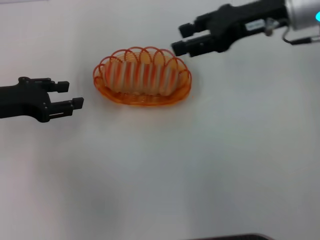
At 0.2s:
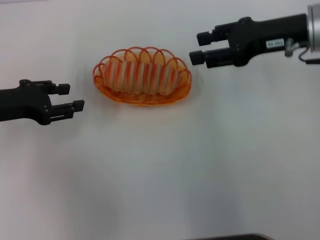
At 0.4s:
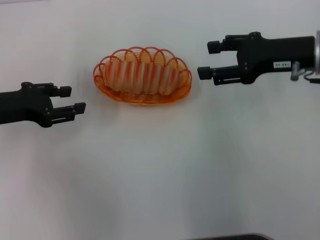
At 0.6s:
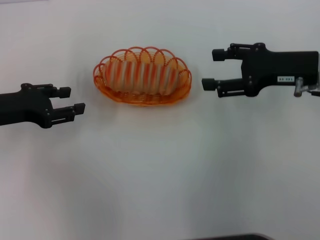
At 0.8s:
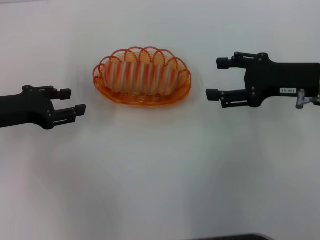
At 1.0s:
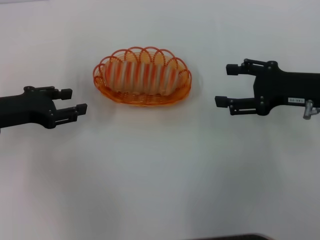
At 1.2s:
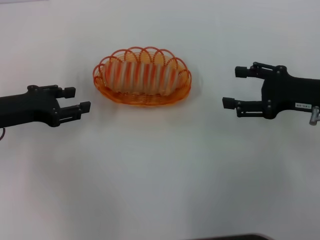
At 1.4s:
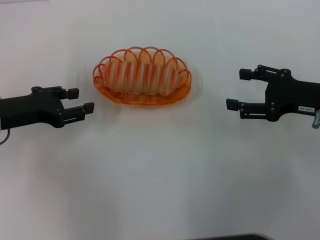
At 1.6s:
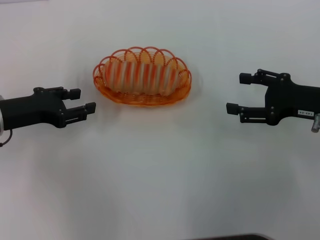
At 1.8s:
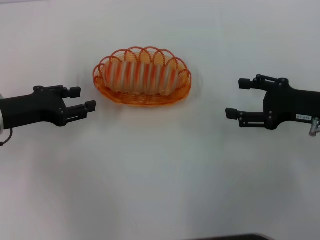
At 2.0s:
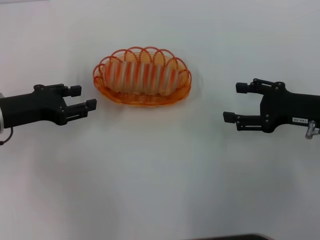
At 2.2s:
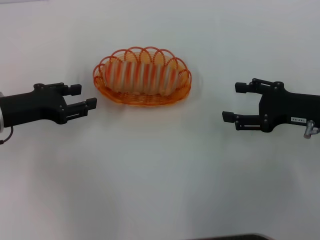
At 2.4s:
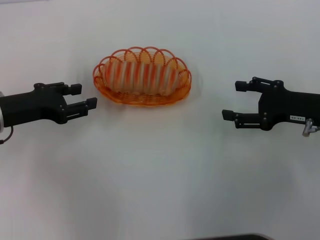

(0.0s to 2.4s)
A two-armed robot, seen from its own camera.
0.0s - 1.2s: The right gripper heads downward, backward and to the right, covering approximately 15 cm, and opens.
1.2s - 2.4s: The grippers stay close to where they were, moving slightly.

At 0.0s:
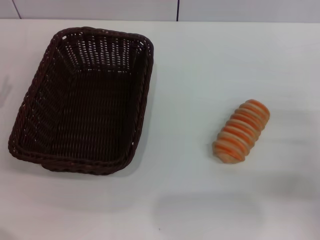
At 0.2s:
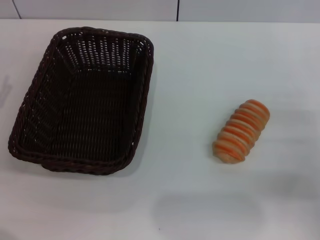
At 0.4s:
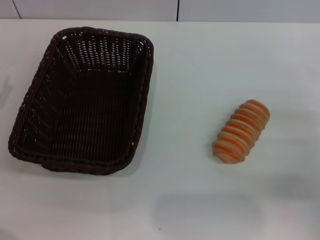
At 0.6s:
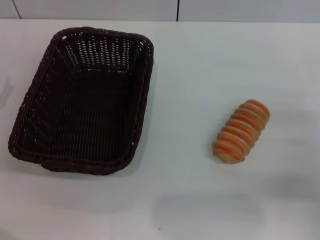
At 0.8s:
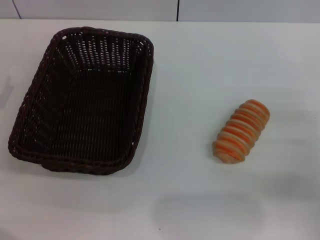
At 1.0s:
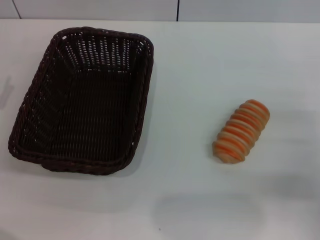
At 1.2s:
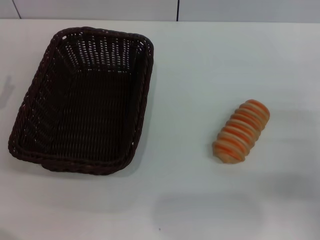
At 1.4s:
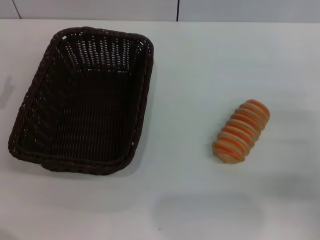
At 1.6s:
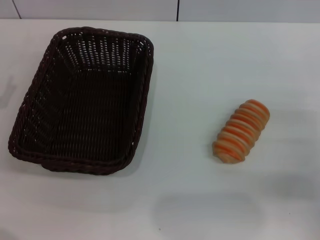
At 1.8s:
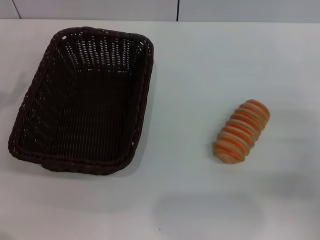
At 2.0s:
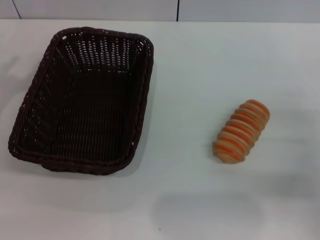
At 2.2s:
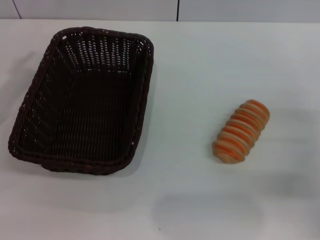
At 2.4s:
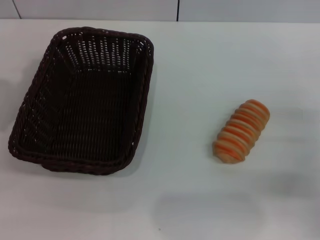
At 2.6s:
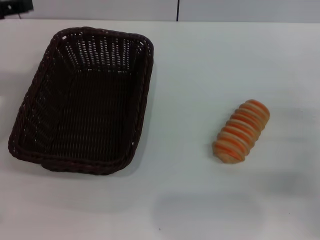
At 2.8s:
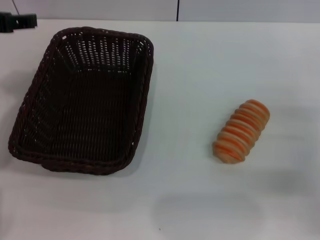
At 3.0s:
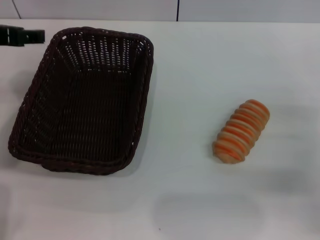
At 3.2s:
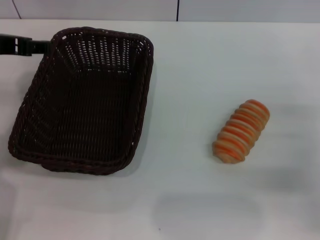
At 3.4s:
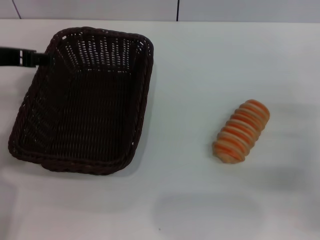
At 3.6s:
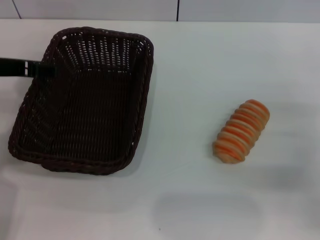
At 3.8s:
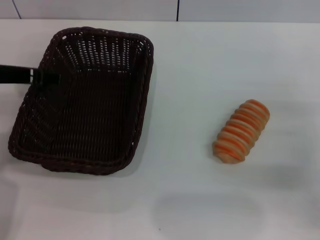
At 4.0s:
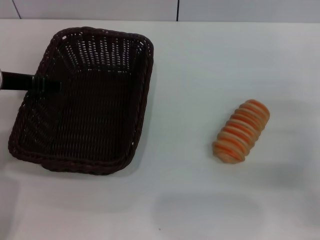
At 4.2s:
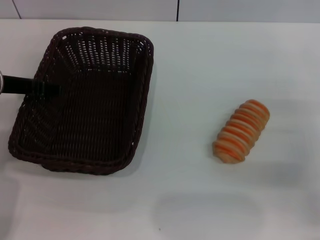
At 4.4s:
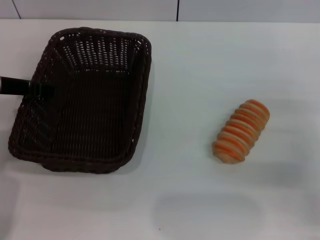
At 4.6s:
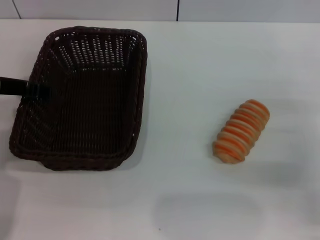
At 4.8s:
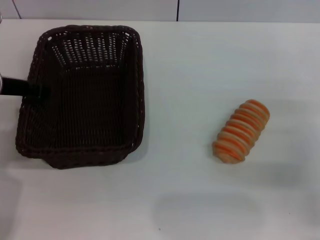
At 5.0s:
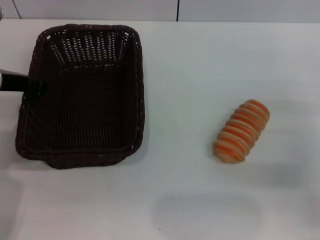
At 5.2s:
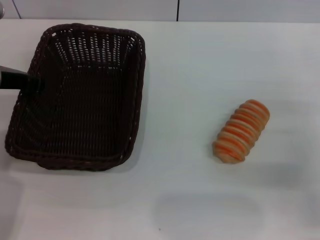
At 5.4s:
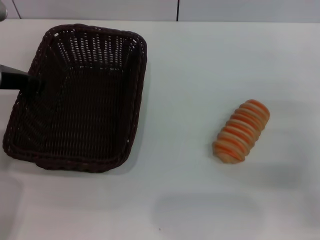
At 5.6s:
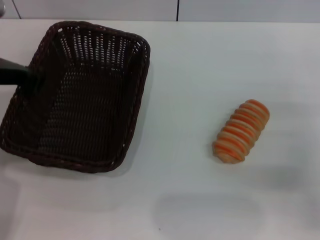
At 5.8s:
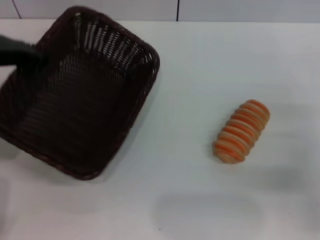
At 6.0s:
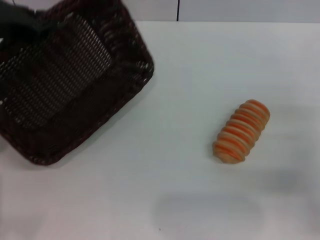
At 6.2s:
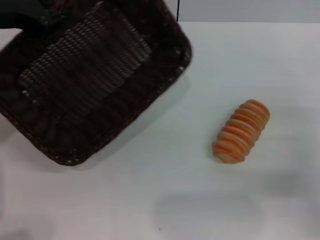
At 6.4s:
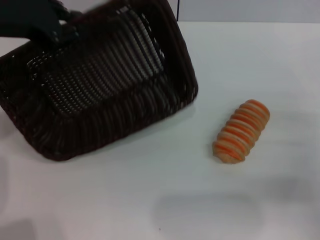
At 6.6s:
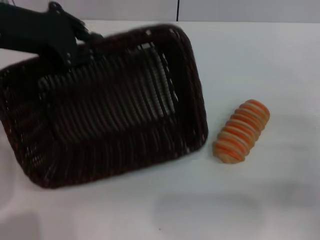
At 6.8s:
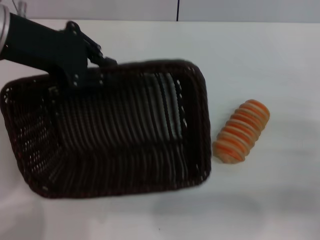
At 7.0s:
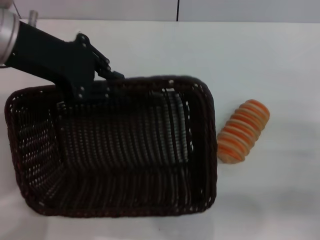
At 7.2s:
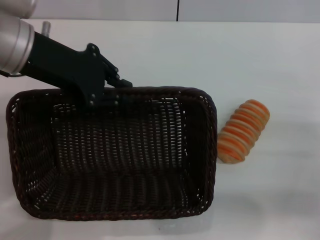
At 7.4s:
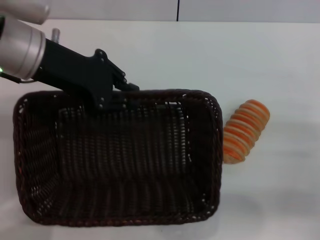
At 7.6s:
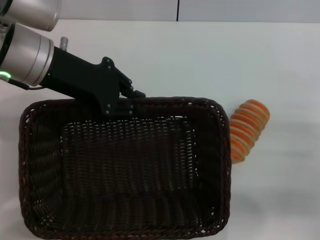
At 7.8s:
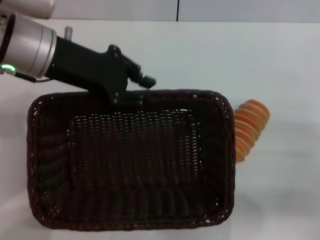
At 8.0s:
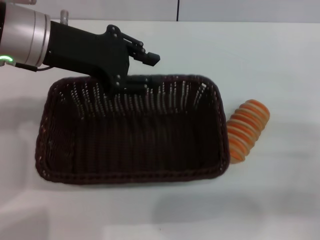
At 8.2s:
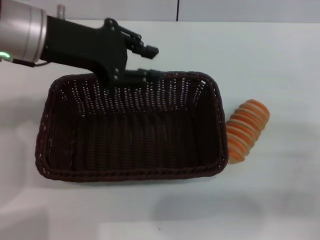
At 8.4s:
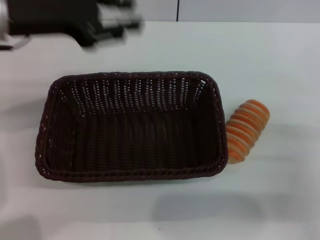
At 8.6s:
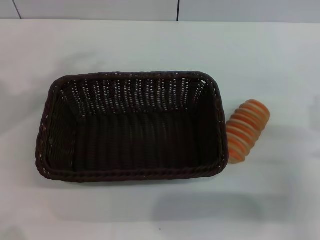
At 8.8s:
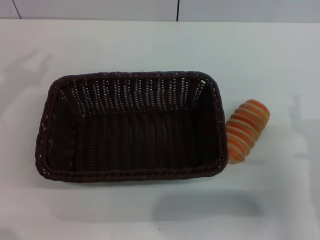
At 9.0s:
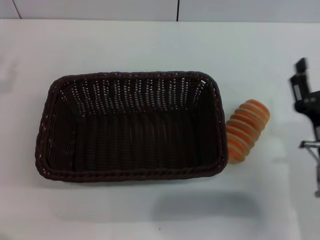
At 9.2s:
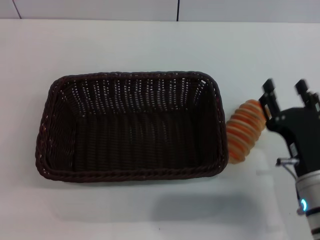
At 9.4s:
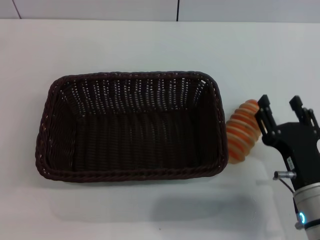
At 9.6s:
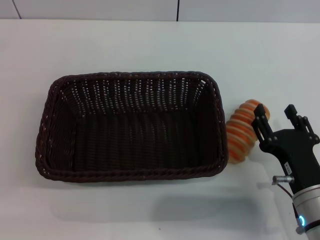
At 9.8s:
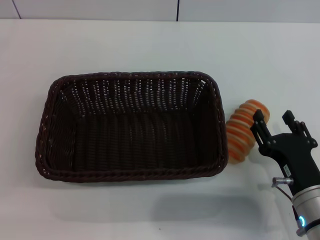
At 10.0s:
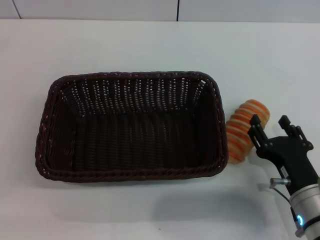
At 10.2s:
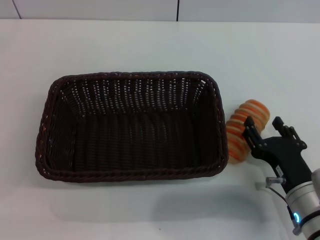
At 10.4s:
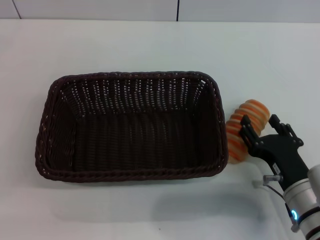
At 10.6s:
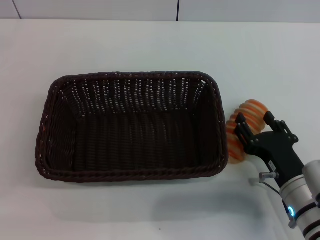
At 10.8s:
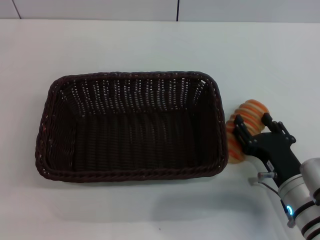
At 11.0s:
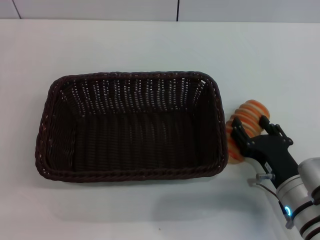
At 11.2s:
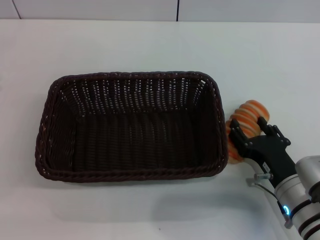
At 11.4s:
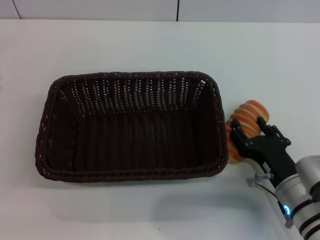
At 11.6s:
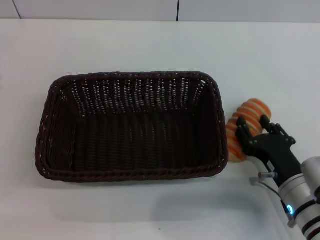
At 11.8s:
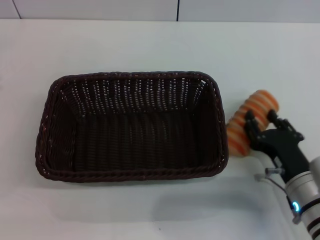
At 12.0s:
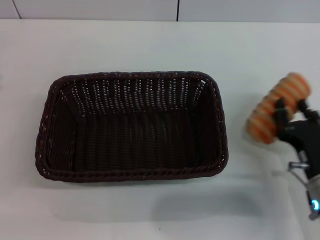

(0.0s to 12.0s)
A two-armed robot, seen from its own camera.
Step, 0.0s - 6.0s: Pick up the dark basket with the left gripper.
Step, 6.2s - 8.0s: Place the dark basket in the center of view with the left gripper.
0.0s - 1.6s: Both grippers stay about where they are.
1.6s - 3.0s: The left gripper travels upward and to the right by about 20 cm.
3.0s - 4.4s: The left gripper travels downward by about 10 cm.
4.4s - 6.0s: The left gripper shifts some 5 cm upward, and closes its fingers.
6.0s - 7.6s: The left gripper goes some 10 cm to the right.
7.6s - 9.0s: The right gripper is displaced to the left by about 10 cm. The left gripper is displaced to the left and downward by some 20 cm, and opens up.
10.4s - 12.0s: The grippers make only small movements.

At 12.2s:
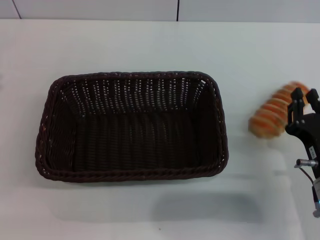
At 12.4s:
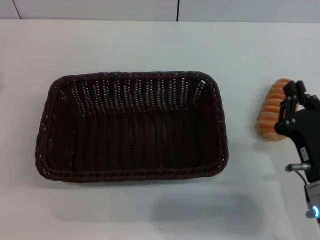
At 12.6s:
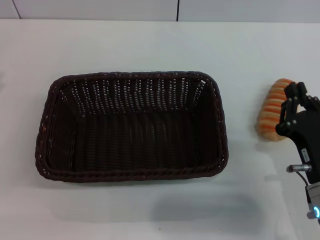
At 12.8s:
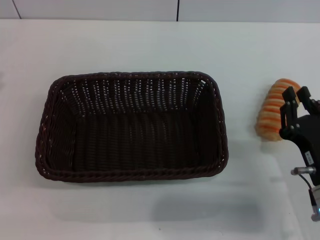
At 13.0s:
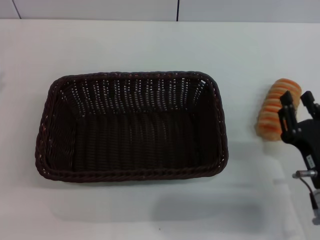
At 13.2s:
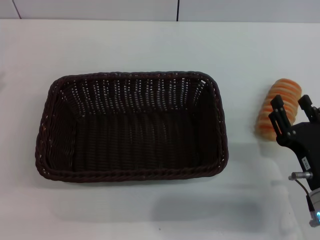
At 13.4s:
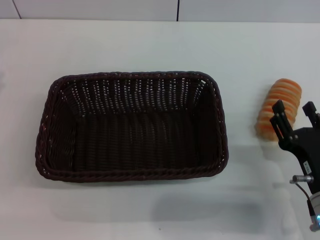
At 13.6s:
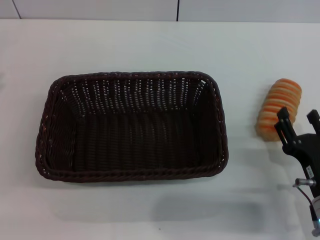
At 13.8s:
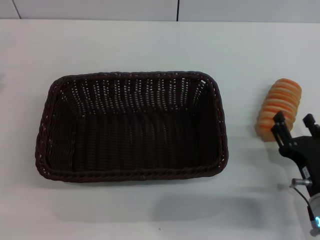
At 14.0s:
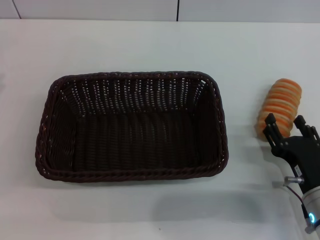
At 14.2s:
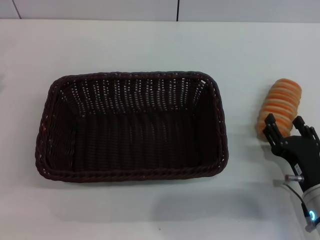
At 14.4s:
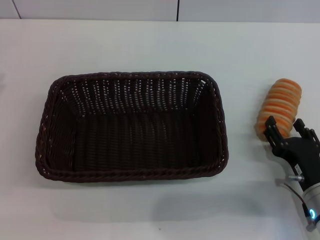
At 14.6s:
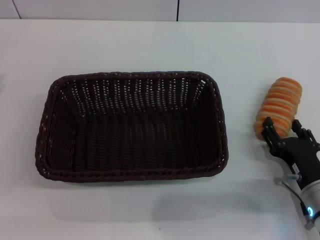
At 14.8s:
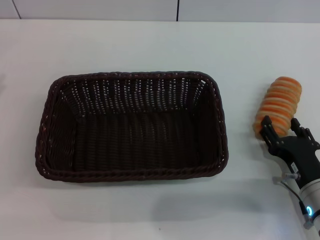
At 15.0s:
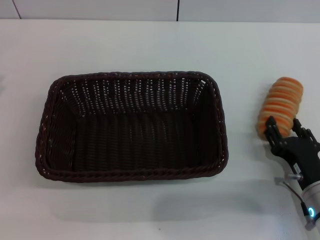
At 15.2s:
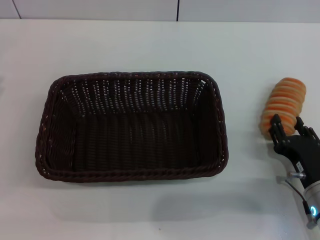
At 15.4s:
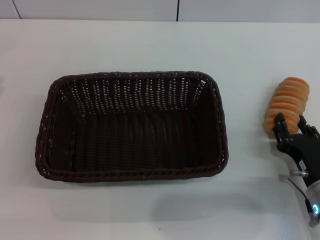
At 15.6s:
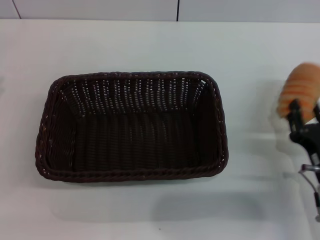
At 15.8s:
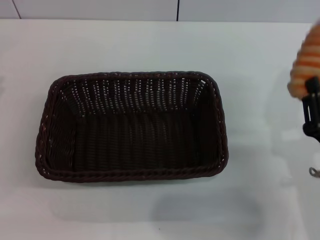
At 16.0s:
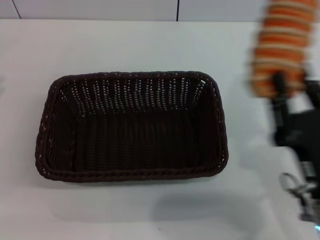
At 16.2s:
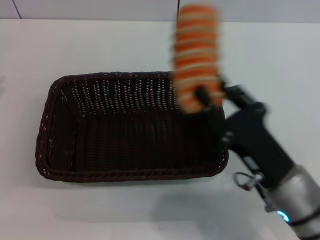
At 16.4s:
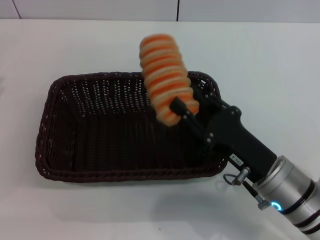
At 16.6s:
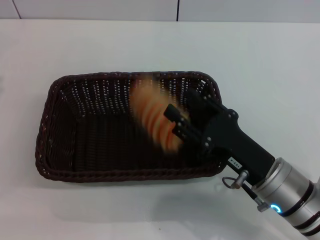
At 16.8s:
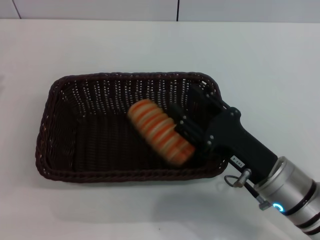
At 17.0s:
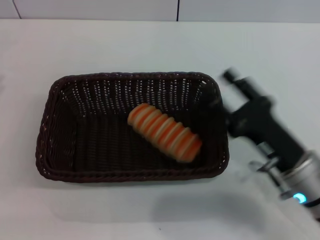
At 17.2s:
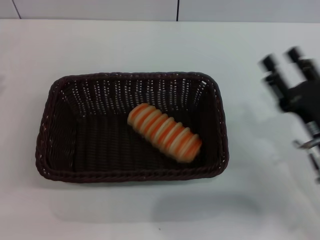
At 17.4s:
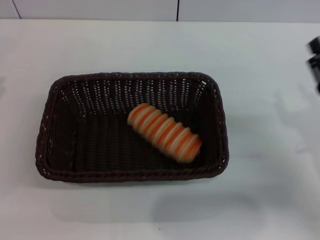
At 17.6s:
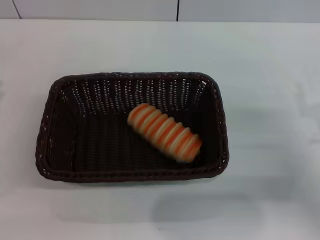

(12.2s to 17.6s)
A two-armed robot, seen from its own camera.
Step, 12.2s - 15.6s: Pick up the long bread with the right gripper.
Step, 16.0s - 16.8s: Place the long bread into the dark basket with the right gripper.
12.2s - 13.6s: The right gripper opens up.
13.6s - 15.0s: There are only small adjustments of the grippers.
15.0s - 16.2s: The right gripper heads upward and to the left, covering roughly 10 cm, and closes its fingers.
16.2s - 17.6s: The right gripper heads to the right and forward, covering some 15 cm, and opens.

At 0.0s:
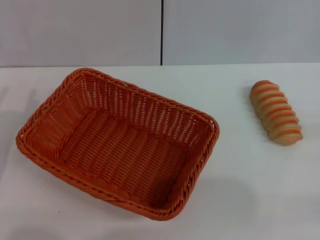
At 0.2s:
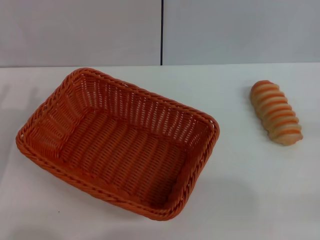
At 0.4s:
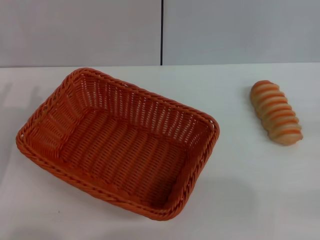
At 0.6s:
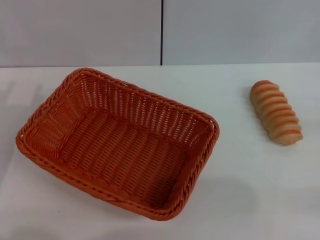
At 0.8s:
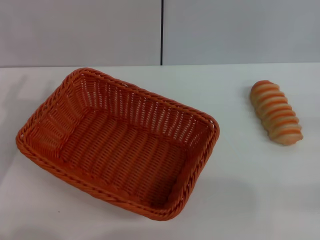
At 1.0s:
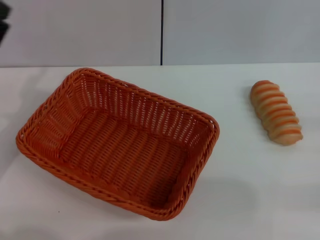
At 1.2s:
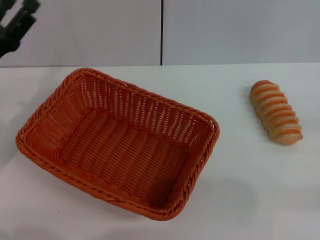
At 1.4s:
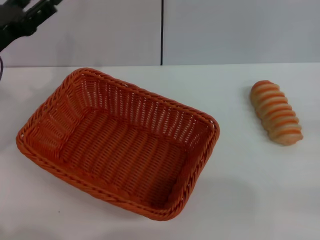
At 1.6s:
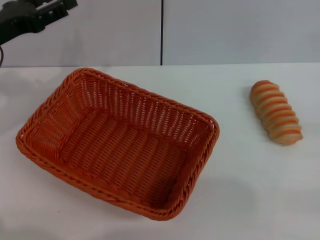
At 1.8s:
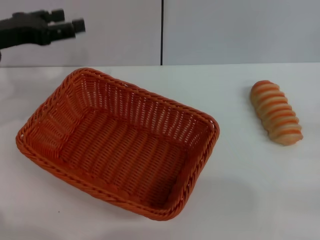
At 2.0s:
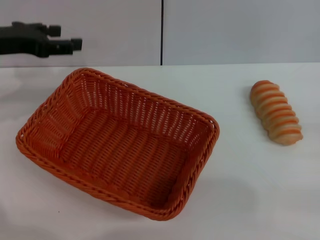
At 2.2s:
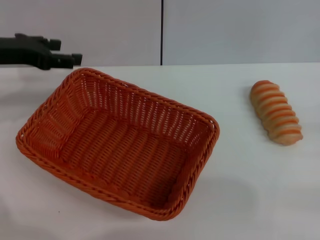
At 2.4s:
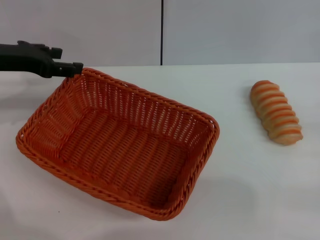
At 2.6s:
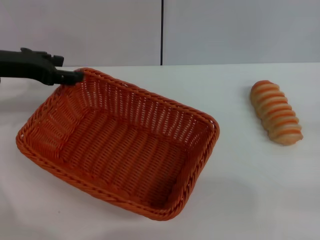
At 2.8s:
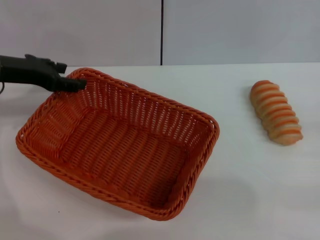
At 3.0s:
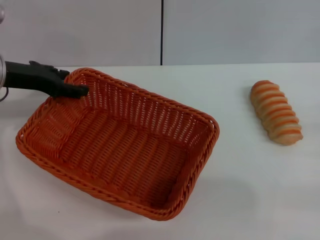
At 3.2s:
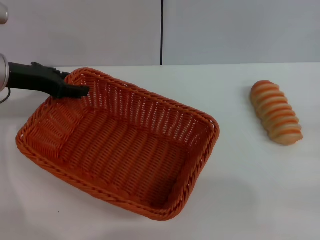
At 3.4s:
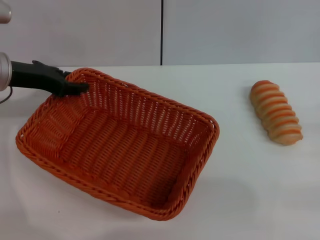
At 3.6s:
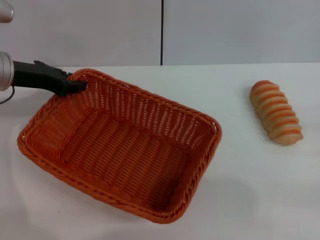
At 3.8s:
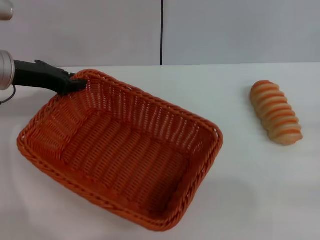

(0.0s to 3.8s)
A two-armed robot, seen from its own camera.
0.0s - 1.2s: The left gripper travels forward by about 10 cm.
1.2s - 2.6s: The left gripper goes about 10 cm forward and upward.
2.6s - 3.8s: The left gripper closes up.
